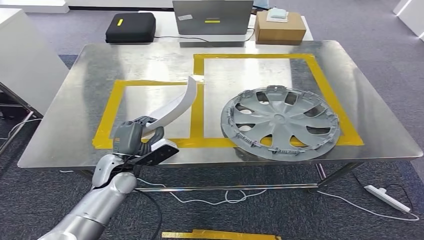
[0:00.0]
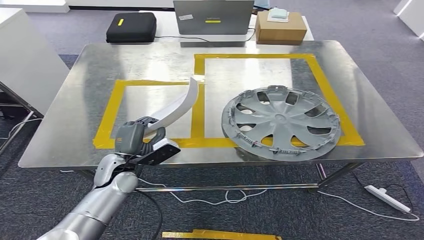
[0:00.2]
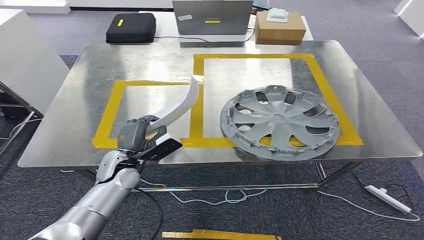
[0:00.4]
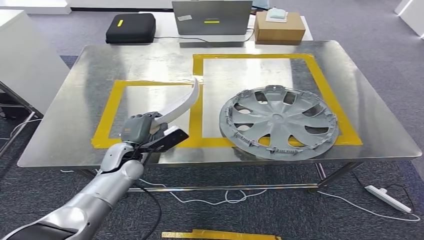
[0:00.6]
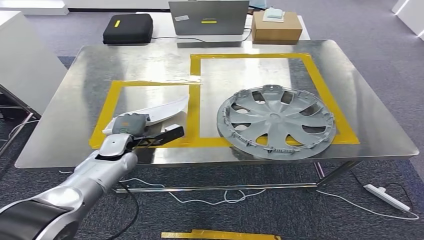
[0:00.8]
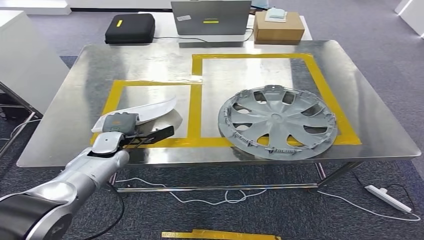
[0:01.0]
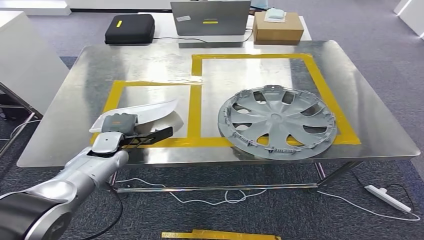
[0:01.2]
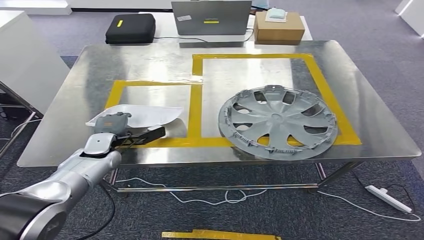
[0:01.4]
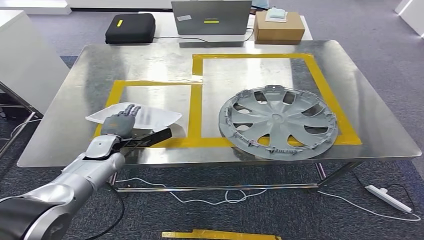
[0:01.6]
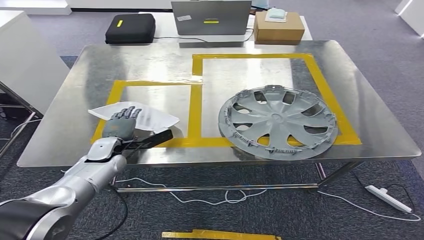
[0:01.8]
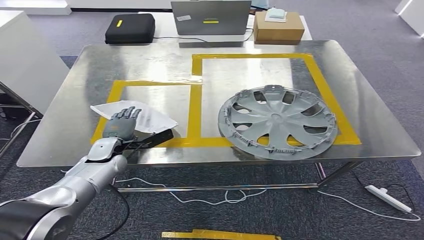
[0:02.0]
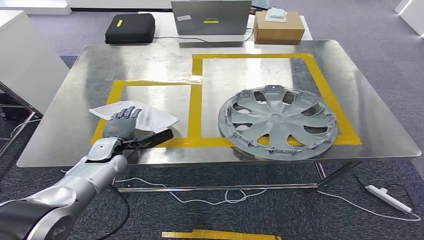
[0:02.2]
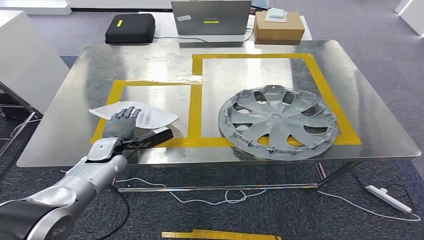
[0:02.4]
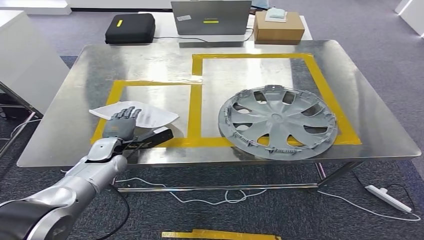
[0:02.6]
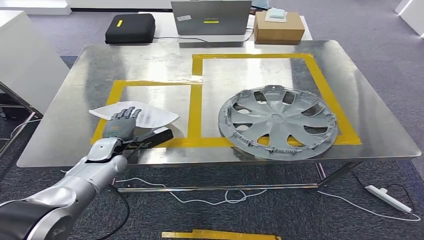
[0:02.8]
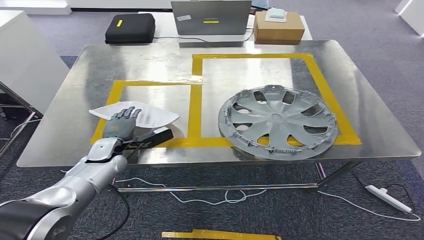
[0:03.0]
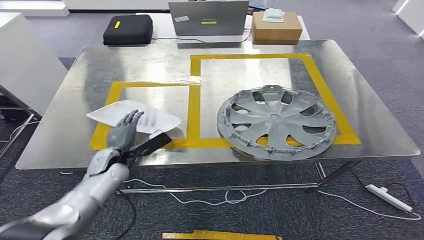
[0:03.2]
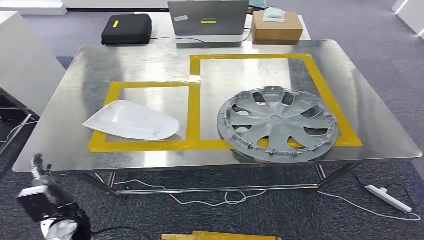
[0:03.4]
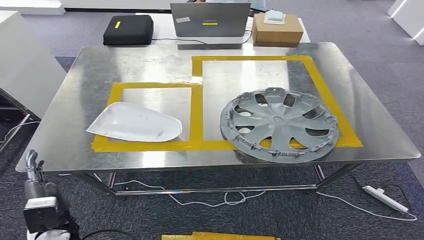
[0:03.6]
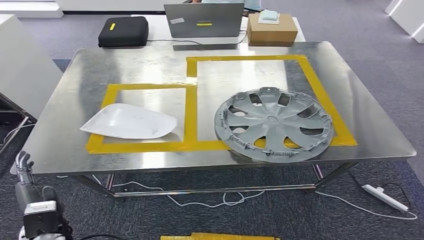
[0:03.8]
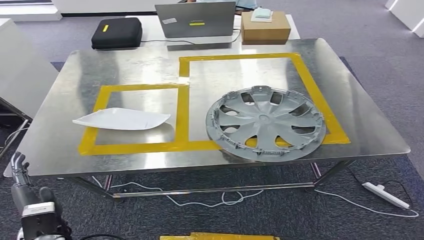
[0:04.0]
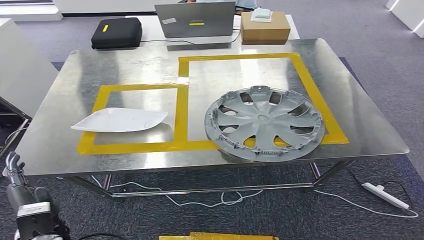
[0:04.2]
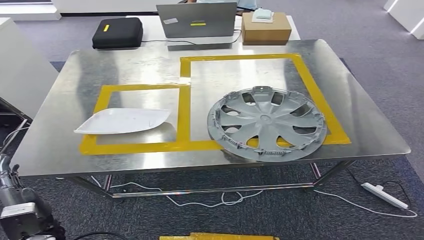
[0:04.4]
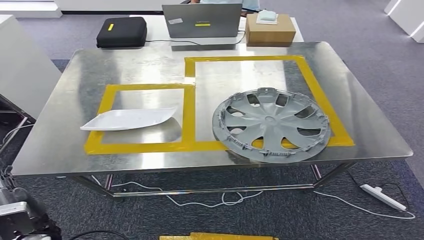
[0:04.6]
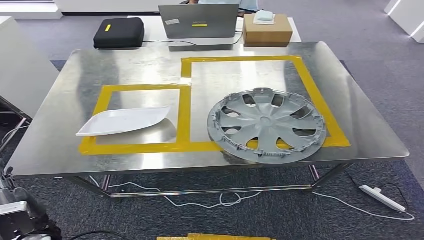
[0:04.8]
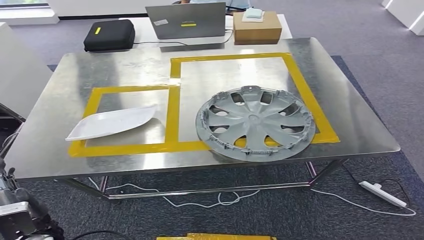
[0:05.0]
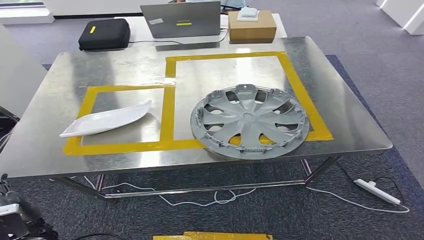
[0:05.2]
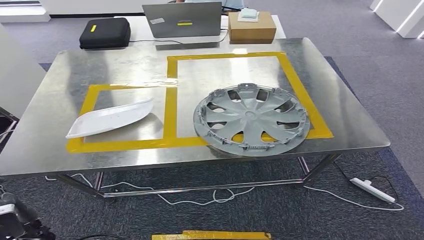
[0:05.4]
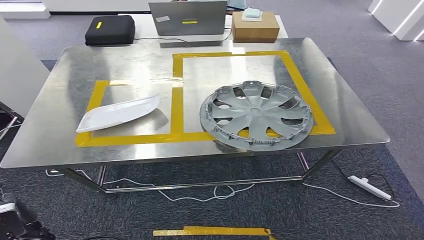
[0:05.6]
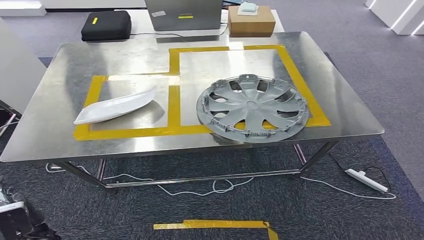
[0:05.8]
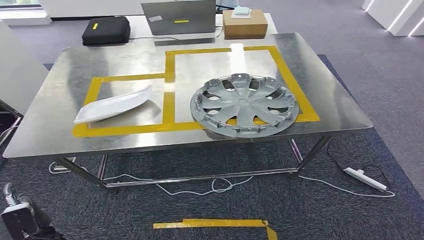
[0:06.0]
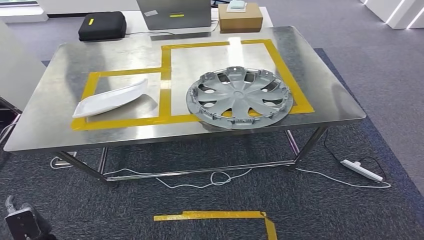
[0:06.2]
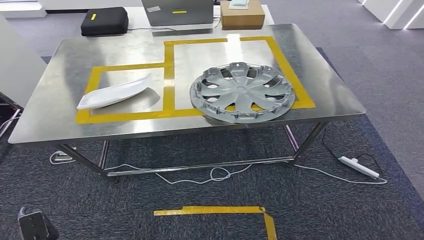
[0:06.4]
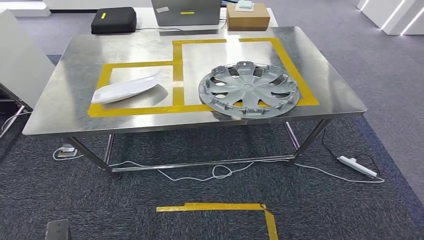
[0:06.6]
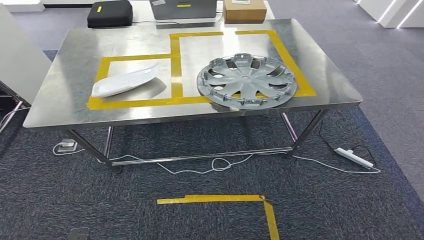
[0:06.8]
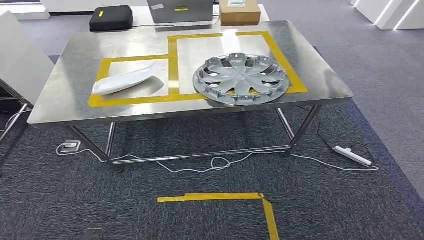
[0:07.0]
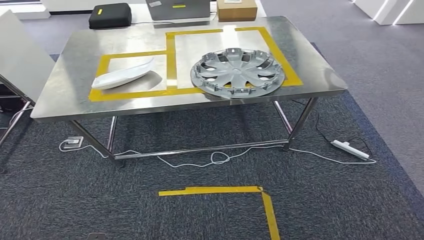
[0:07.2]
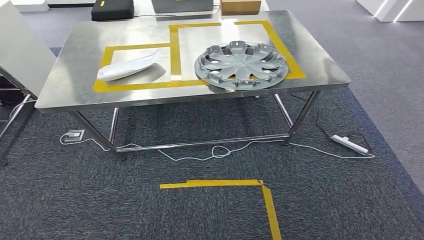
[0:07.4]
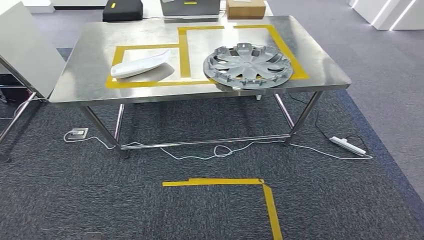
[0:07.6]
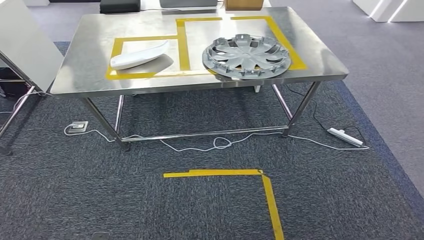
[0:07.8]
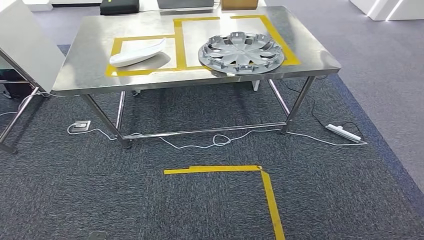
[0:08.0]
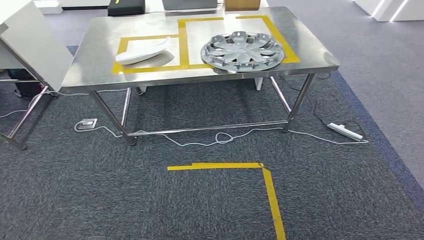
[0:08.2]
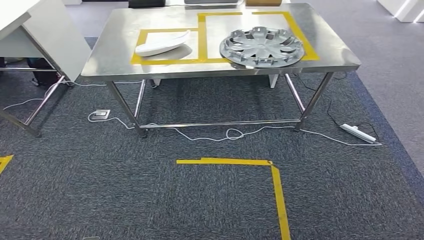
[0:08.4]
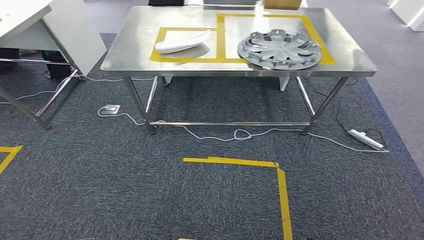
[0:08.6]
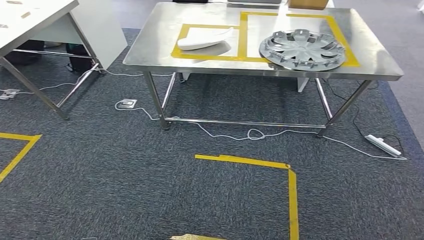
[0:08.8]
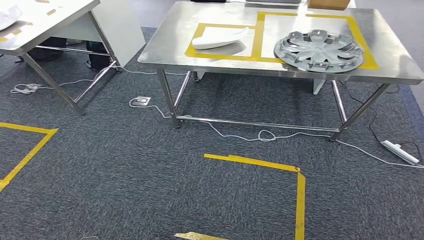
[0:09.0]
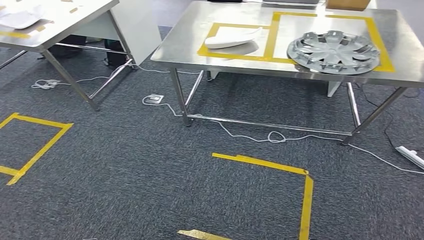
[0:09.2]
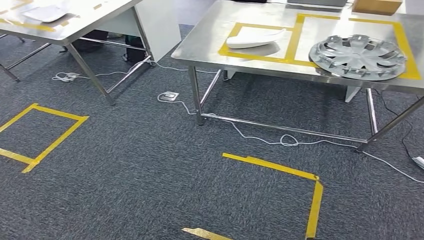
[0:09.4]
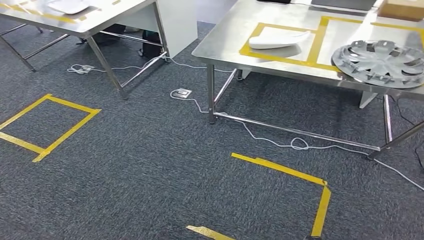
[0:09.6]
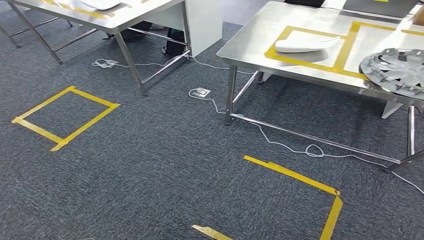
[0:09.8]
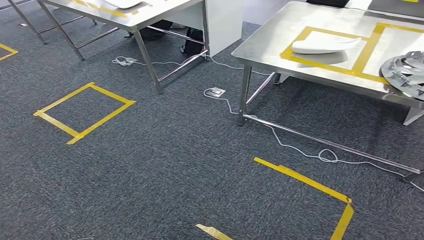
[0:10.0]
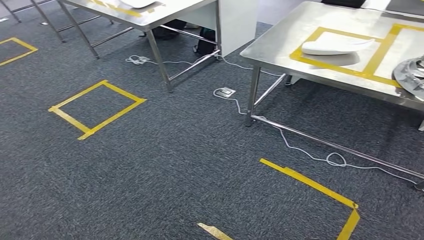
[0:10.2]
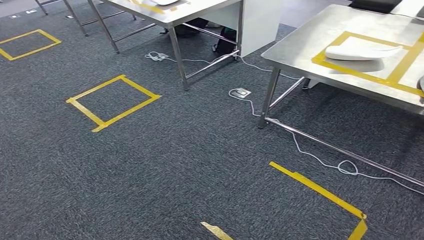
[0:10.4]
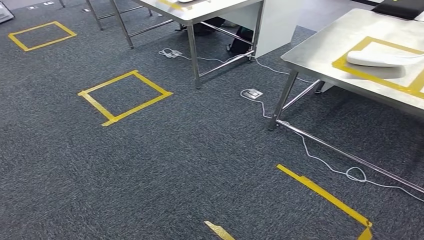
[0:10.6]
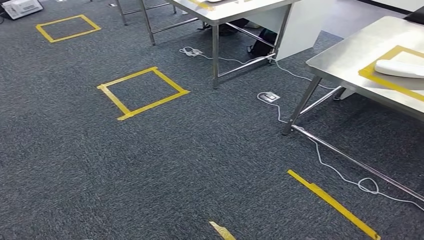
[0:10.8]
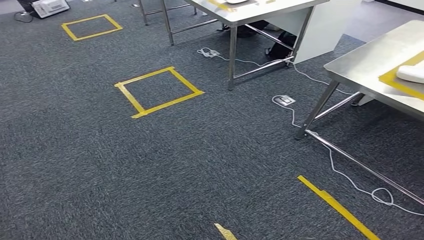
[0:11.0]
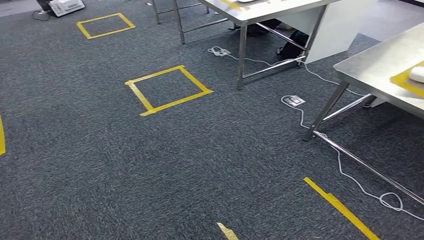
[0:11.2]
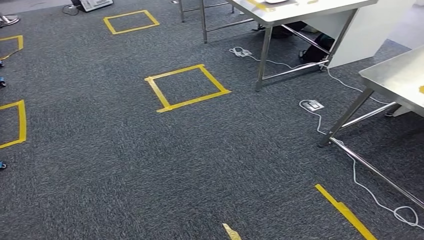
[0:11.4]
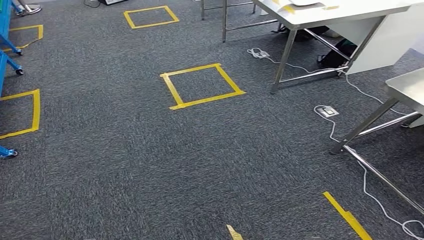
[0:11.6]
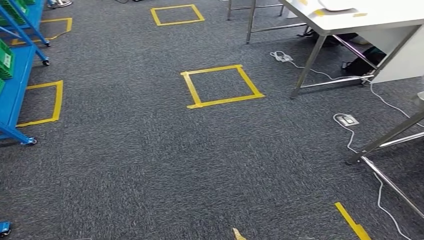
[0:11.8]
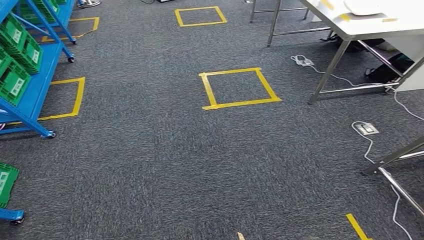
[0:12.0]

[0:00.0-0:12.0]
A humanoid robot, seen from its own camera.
Step, 0:00.0 to 0:07.8: Insert the small component into the corresponding slot on the workbench.
0:00.0 to 0:01.6: The left hand heads forward and to the left, covering about 10 cm.
0:01.6 to 0:03.0: Both hands stay about where they are.

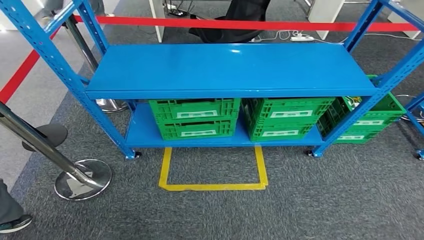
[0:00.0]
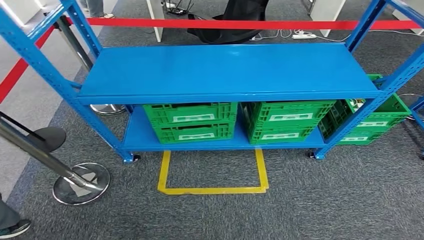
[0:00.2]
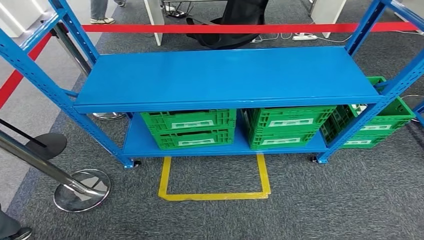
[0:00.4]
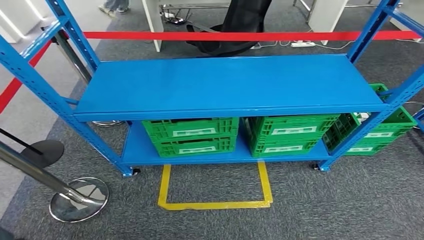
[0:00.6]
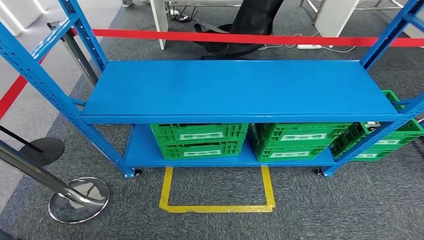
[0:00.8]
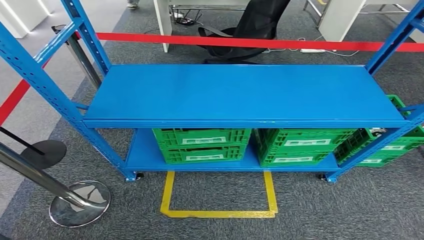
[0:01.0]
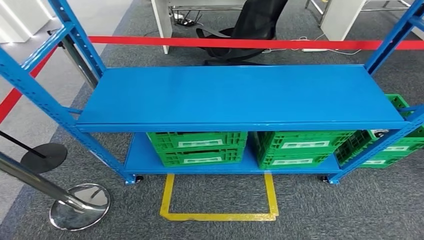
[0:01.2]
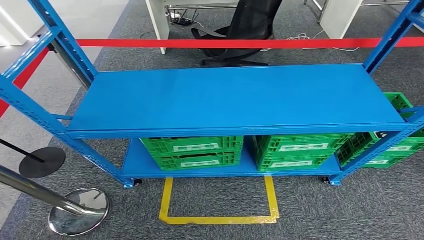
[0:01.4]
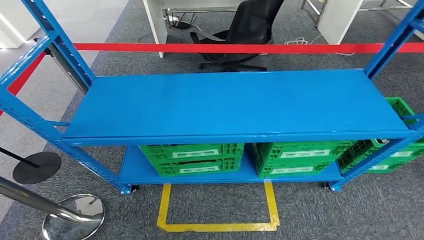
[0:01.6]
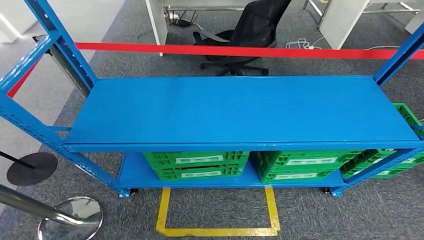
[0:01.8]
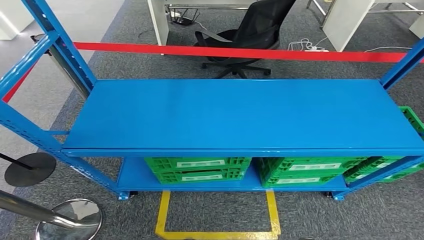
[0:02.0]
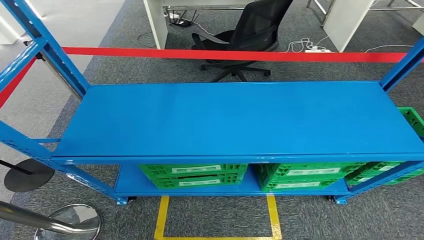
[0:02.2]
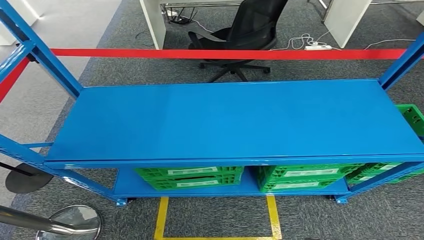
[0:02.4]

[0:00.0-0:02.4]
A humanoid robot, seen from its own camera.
Step, 0:00.0 to 0:02.4: Move to the initial position of the workbench.
